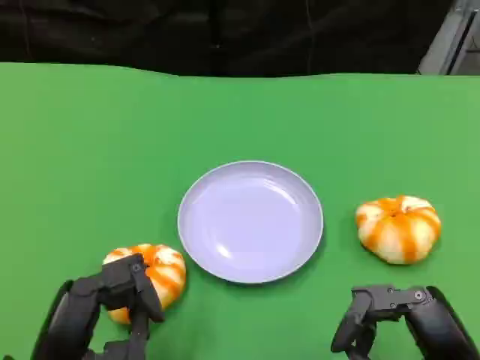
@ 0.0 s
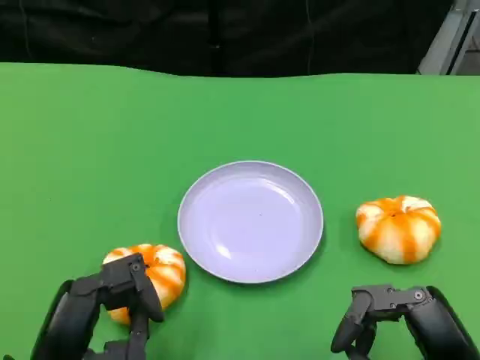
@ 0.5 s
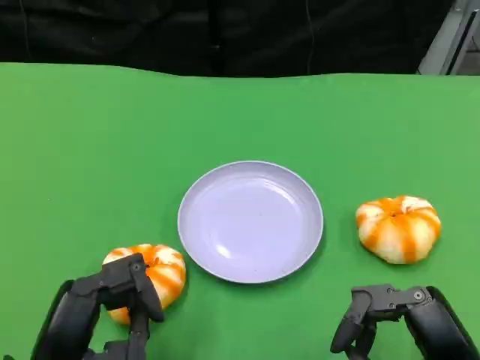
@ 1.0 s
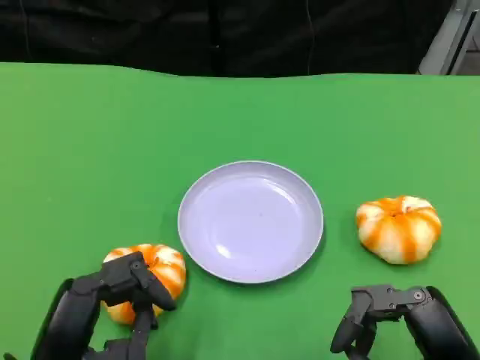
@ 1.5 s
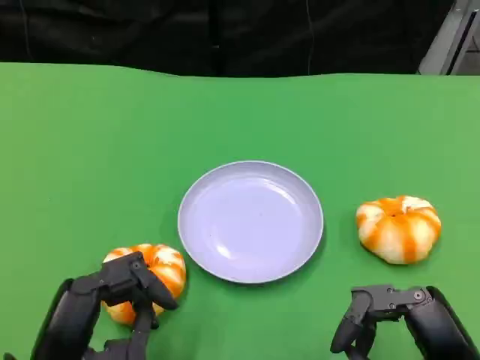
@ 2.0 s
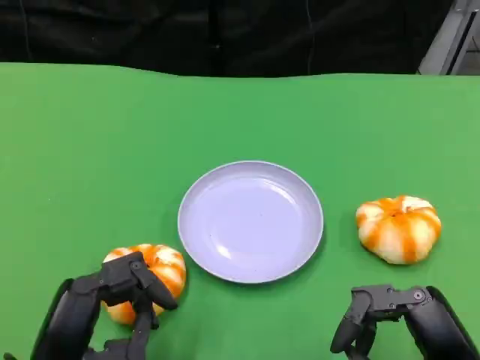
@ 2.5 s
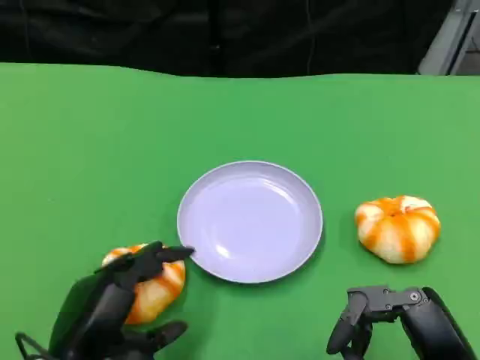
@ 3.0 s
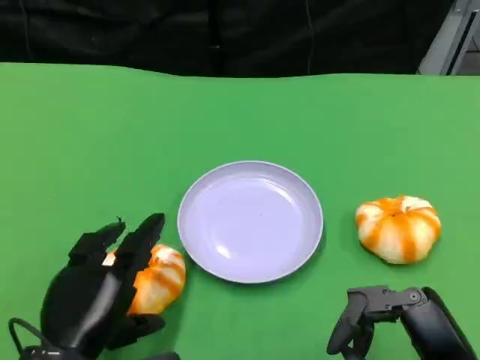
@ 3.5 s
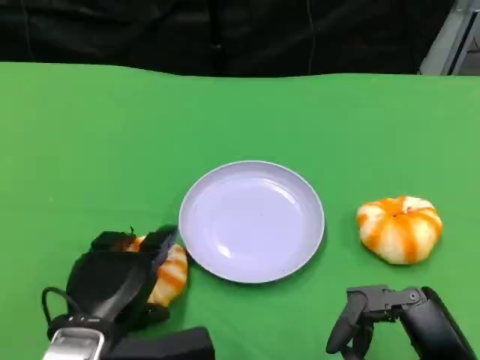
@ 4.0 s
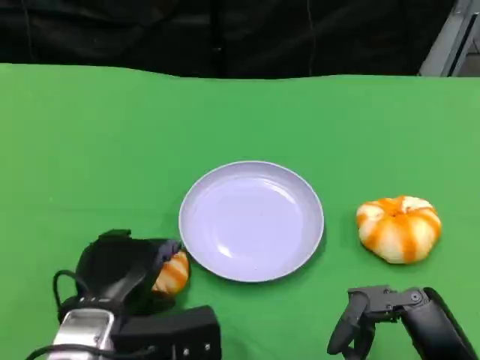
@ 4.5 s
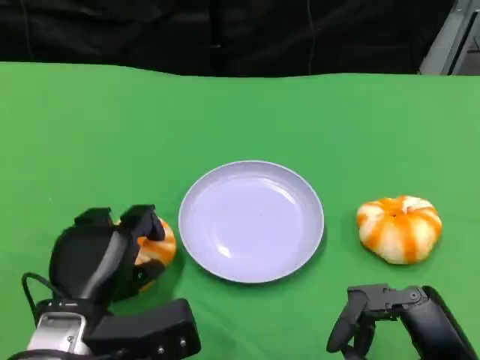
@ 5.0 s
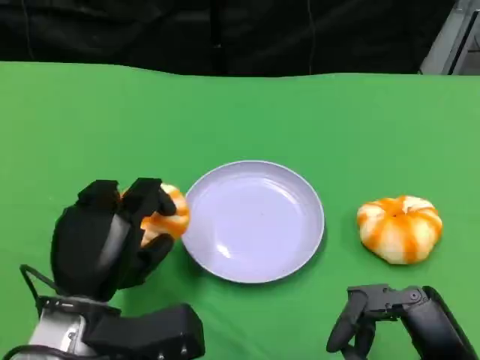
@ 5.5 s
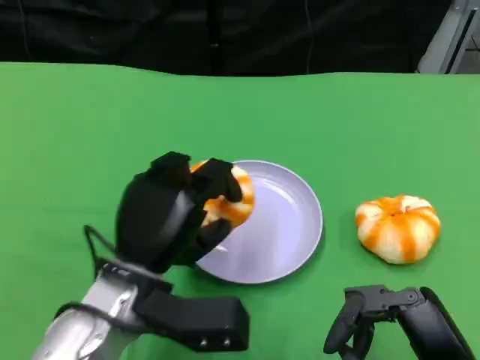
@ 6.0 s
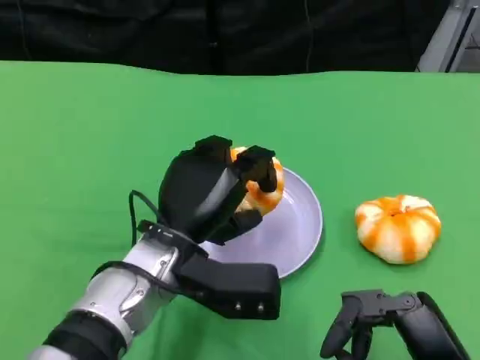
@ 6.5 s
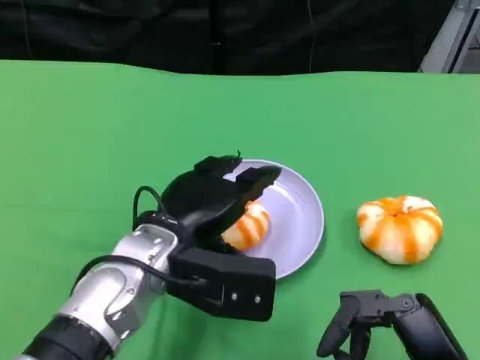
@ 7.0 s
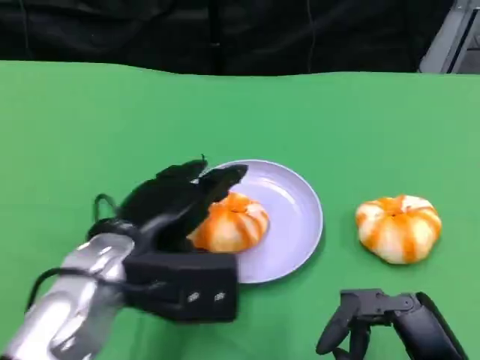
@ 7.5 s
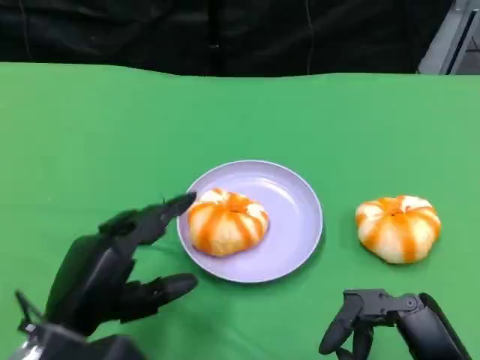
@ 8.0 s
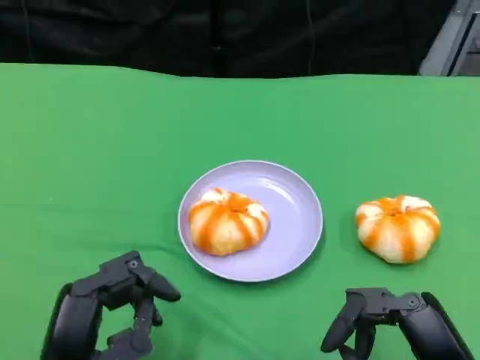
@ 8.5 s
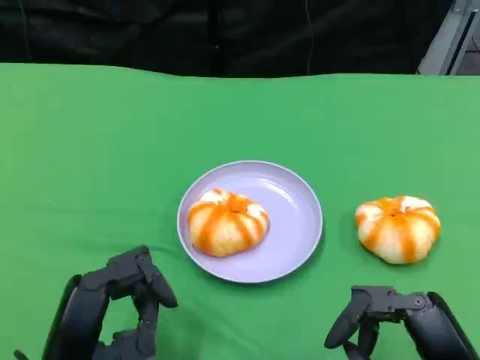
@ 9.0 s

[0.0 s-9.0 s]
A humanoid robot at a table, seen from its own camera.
Task of the whole recording: Grasp the bread from the table and place it into the plate.
0.0 to 2.0 s: Both hands stay put.
2.0 to 4.5 s: The left hand shifts about 5 cm forward.
4.5 to 7.0 s: The left hand moves upward, to the right and forward, about 10 cm.
7.0 to 9.0 s: The left hand moves backward, to the left and downward, approximately 15 cm.

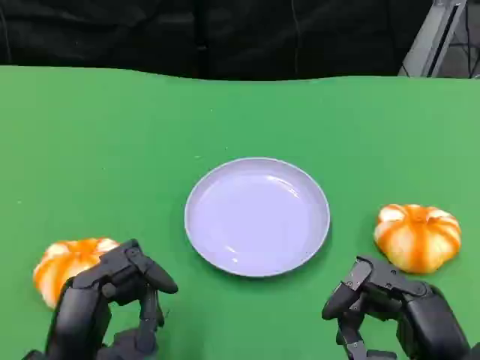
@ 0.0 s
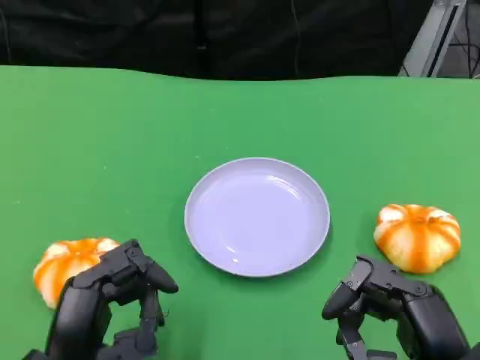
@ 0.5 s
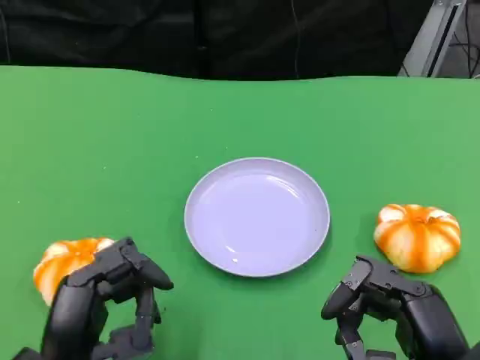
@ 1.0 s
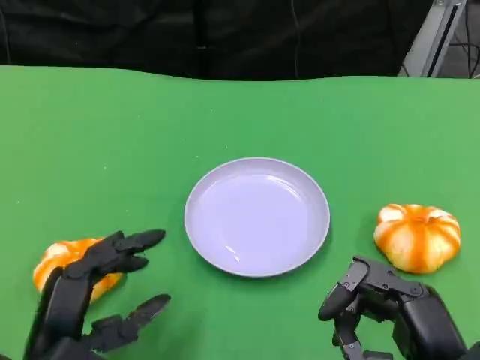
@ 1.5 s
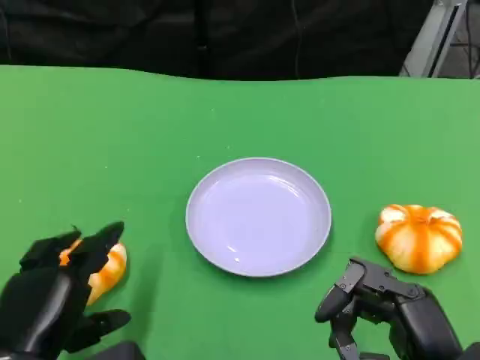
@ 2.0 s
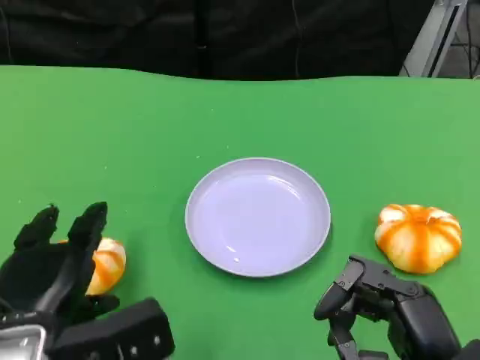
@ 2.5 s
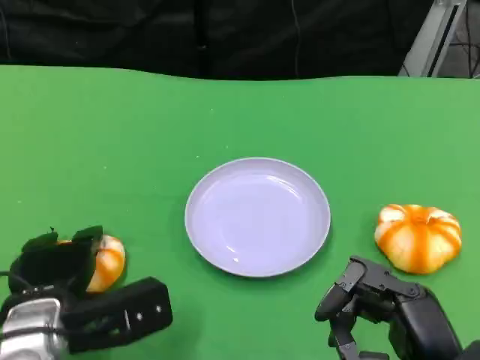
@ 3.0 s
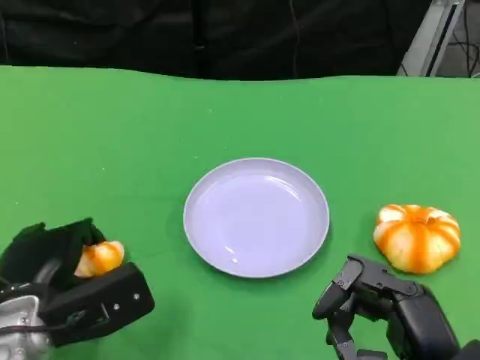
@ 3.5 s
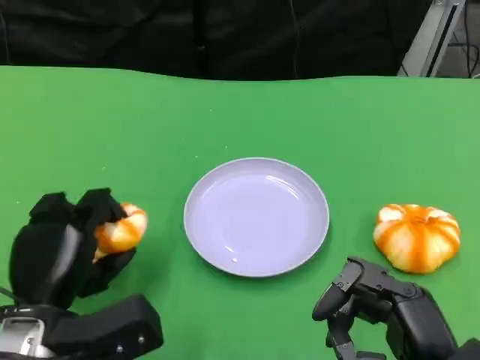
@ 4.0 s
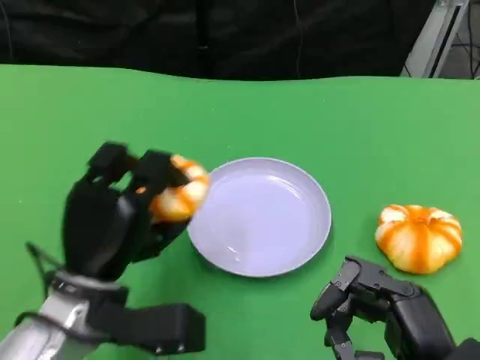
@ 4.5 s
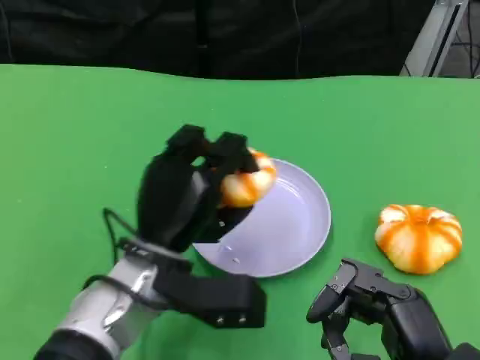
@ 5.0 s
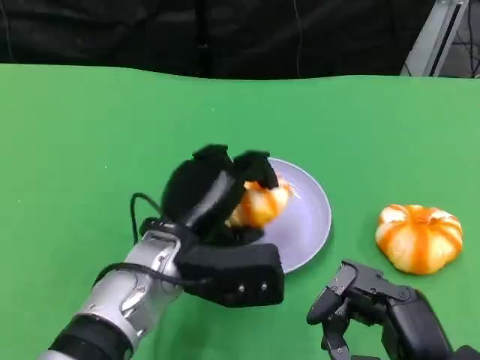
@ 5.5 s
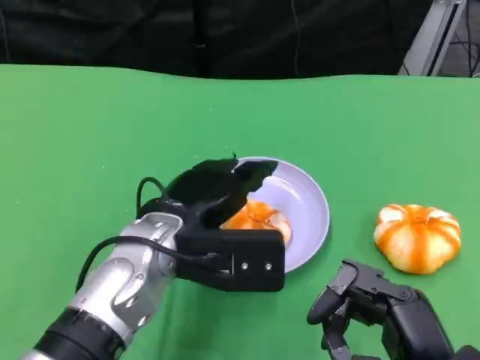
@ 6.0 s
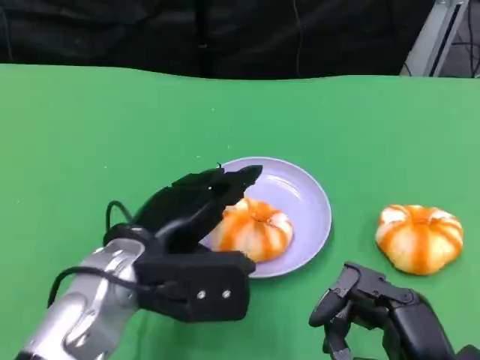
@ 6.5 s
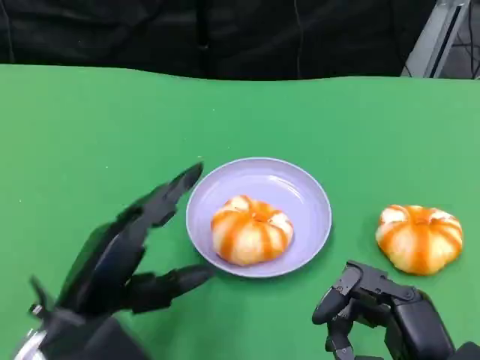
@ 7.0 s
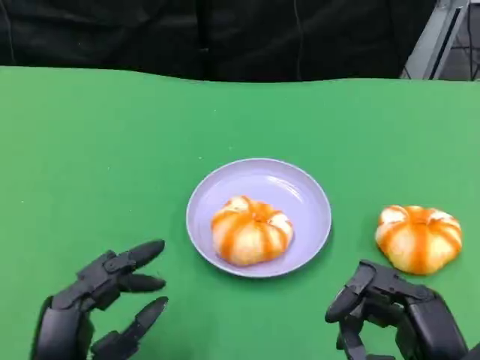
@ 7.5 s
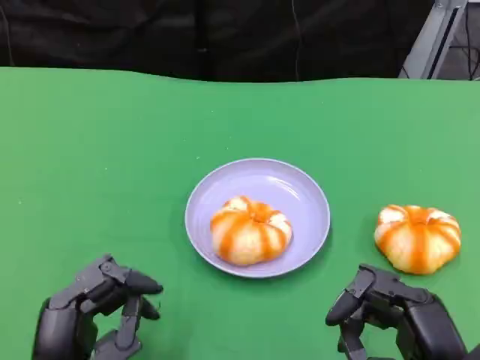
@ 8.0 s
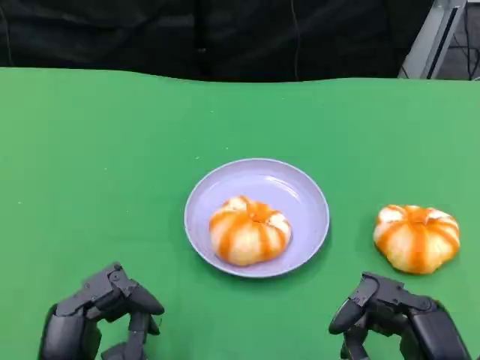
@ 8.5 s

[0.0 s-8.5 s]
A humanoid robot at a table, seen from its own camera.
Task of the whole recording: Grasp the bread from the table and place it into the plate.
2.0 to 4.0 s: The left hand shifts some 5 cm forward.
4.0 to 6.5 s: The left hand travels to the right and upward by about 10 cm.
6.5 to 8.5 s: The left hand heads backward, downward and to the left, covering about 15 cm.

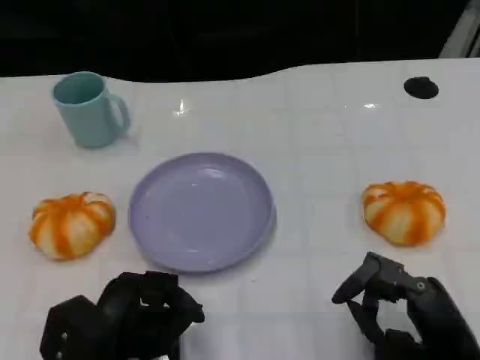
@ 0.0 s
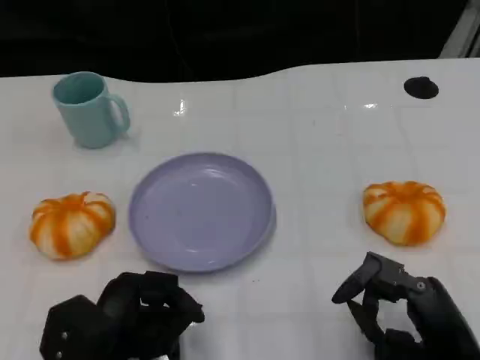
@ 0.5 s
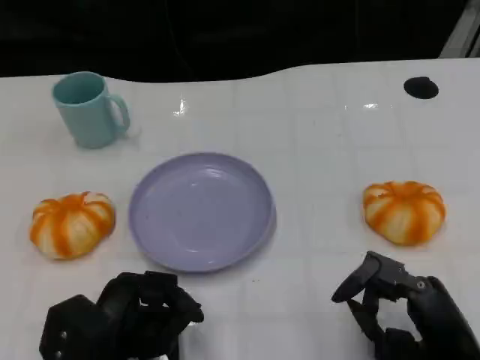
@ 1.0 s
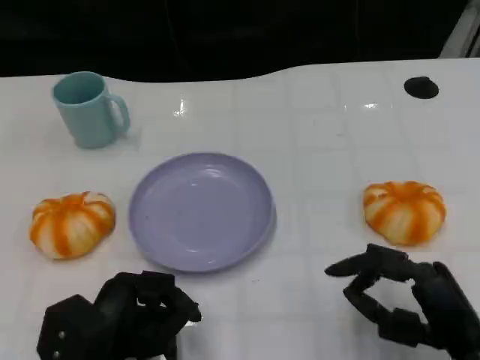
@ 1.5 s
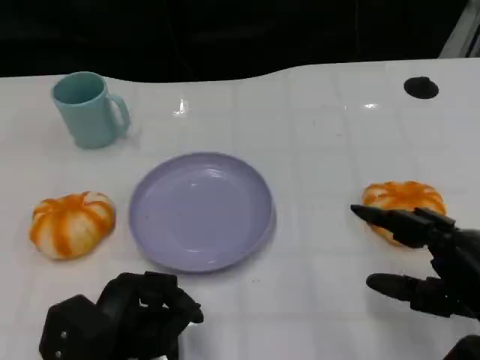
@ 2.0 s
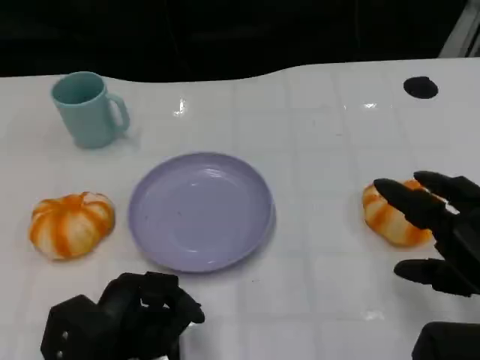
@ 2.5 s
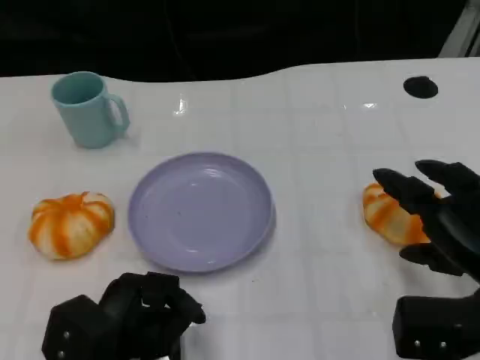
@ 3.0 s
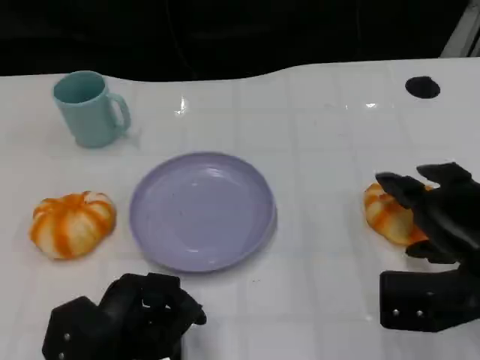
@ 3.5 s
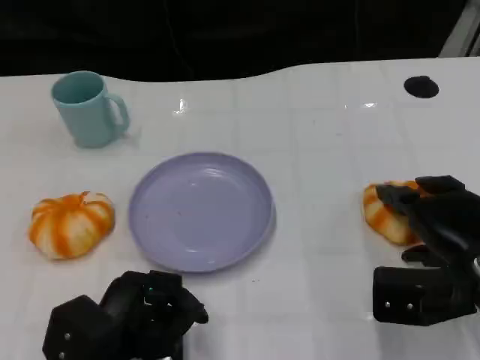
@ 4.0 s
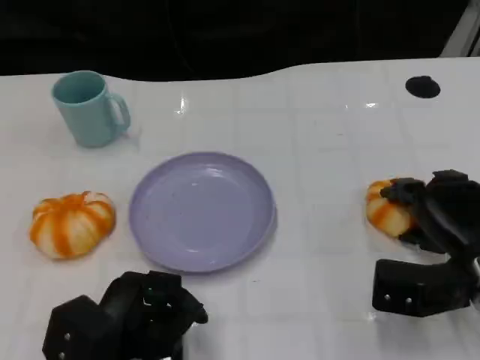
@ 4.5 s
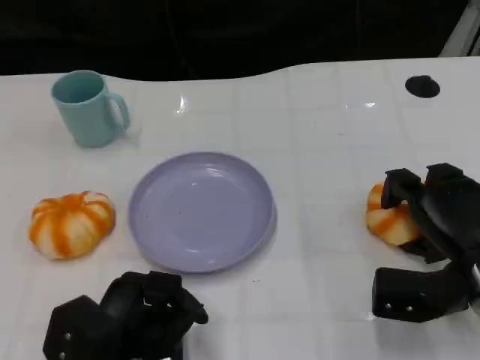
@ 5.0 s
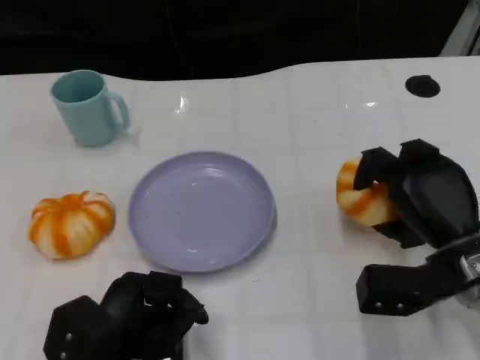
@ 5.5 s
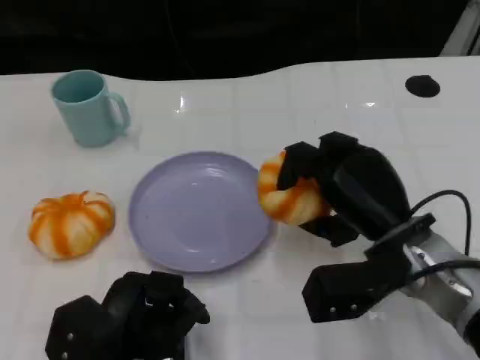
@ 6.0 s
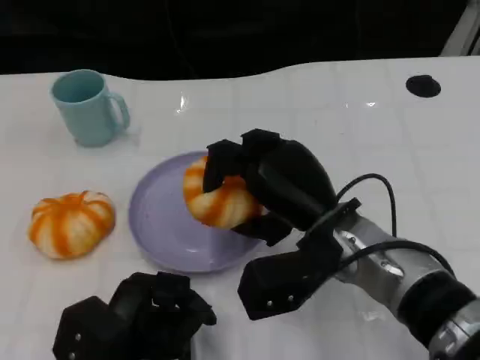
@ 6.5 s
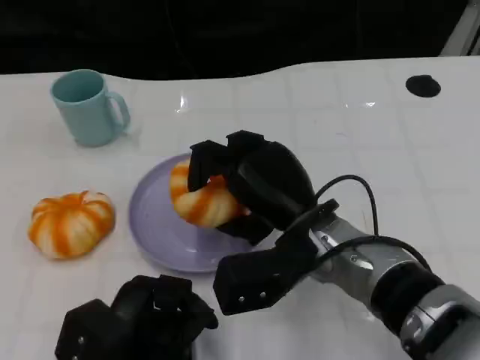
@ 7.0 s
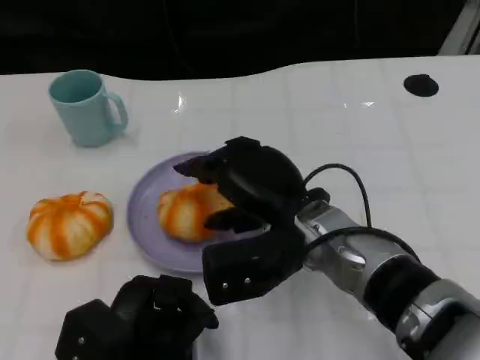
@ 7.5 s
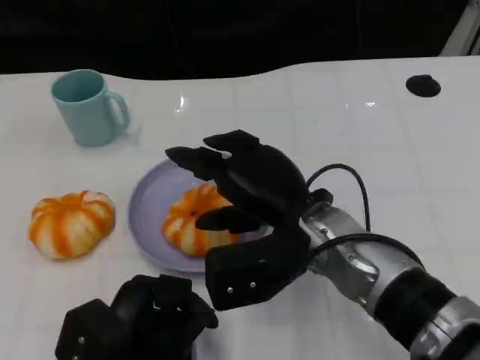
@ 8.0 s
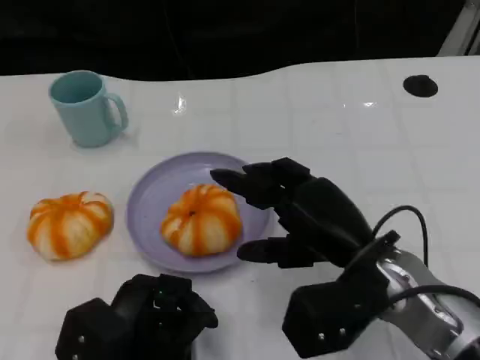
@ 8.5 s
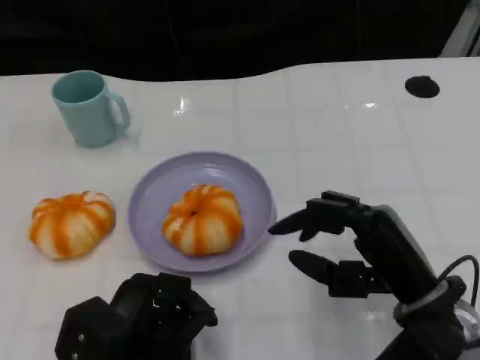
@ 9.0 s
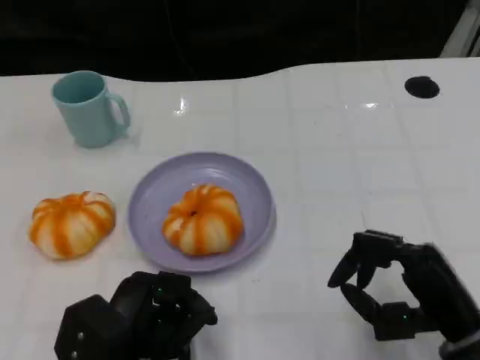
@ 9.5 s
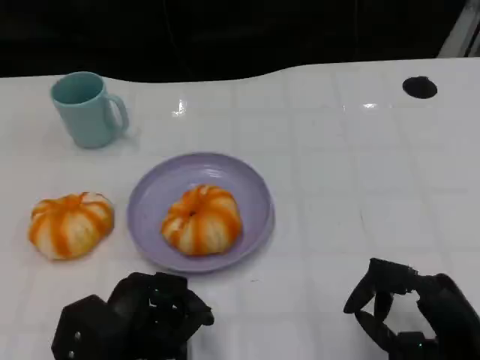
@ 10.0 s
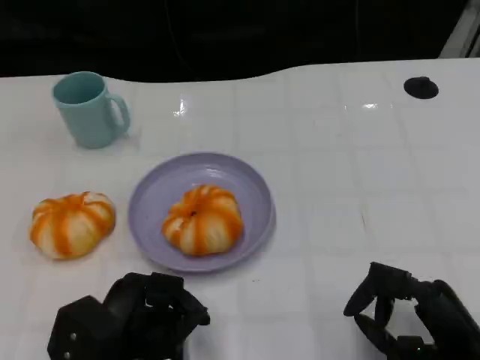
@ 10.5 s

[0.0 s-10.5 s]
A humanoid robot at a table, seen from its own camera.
Task of the whole recording: Grasp the bread from the table and place it into the plate.
0.0 to 2.0 s: The right hand changes place by approximately 5 cm.
2.0 to 4.0 s: The right hand heads forward, covering approximately 10 cm.
4.0 to 6.5 s: The right hand travels to the left by roughly 15 cm.
6.5 to 8.5 s: The right hand travels to the right by approximately 5 cm.
8.5 to 10.5 s: The right hand travels to the right, backward and downward by approximately 15 cm.
